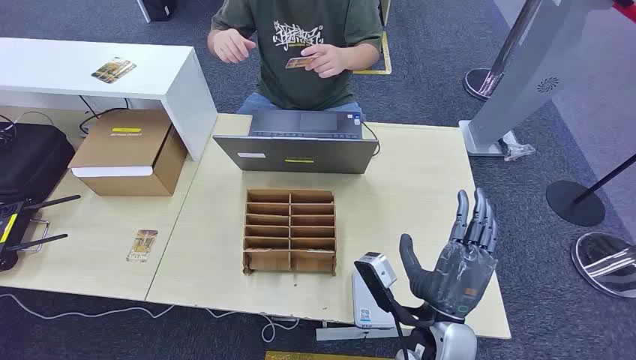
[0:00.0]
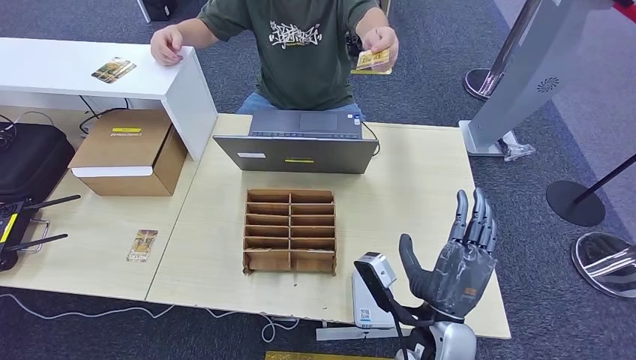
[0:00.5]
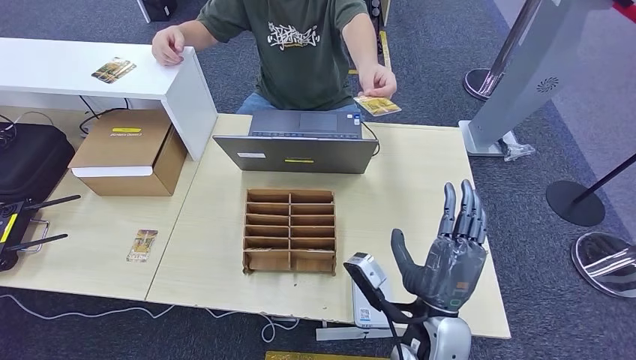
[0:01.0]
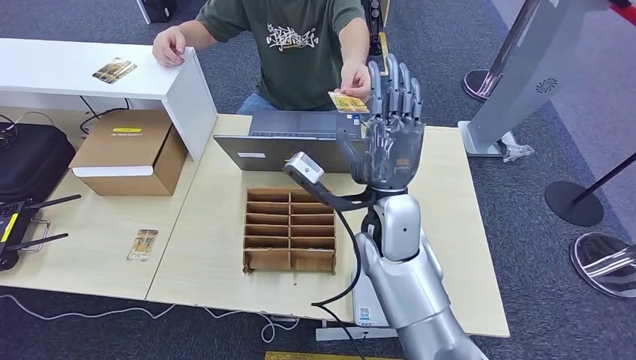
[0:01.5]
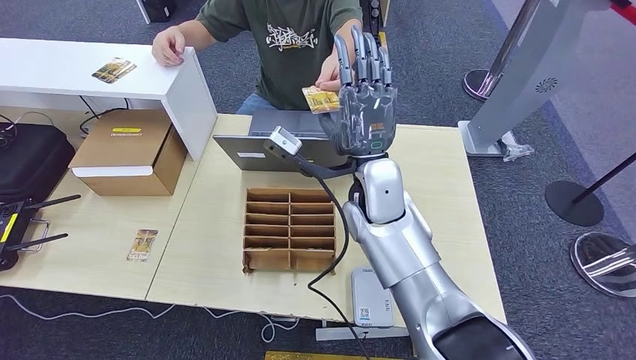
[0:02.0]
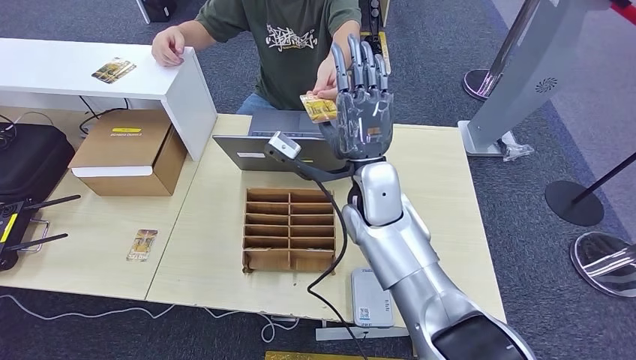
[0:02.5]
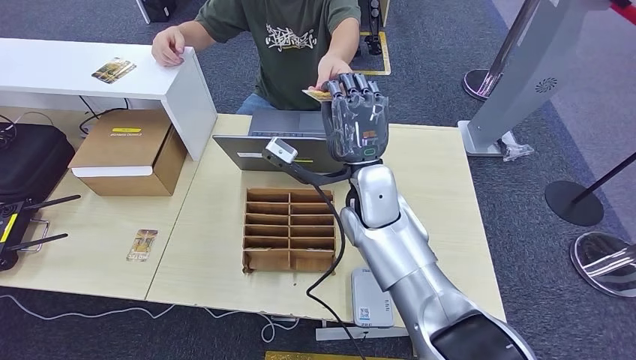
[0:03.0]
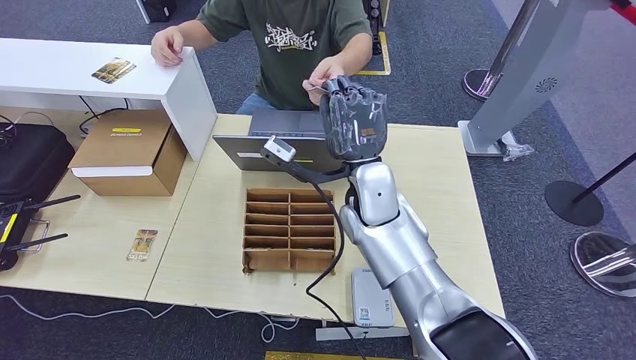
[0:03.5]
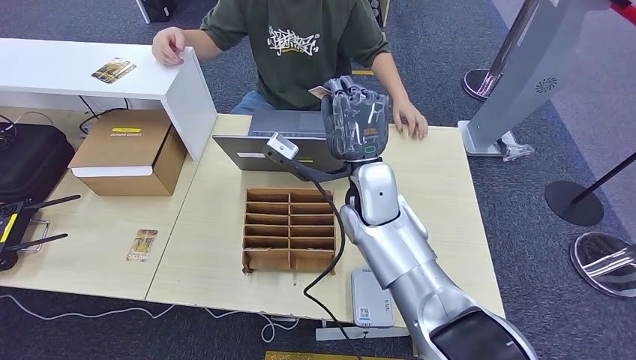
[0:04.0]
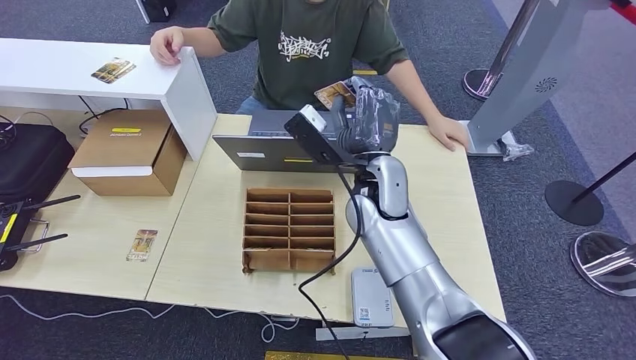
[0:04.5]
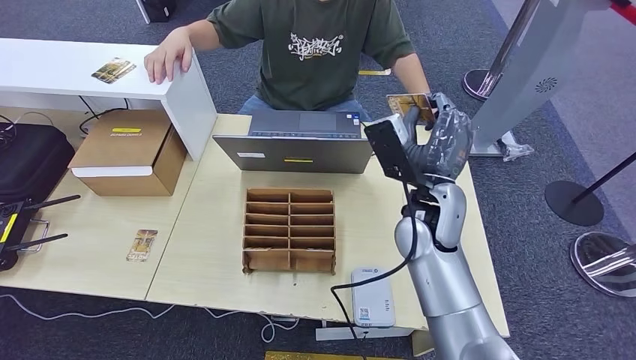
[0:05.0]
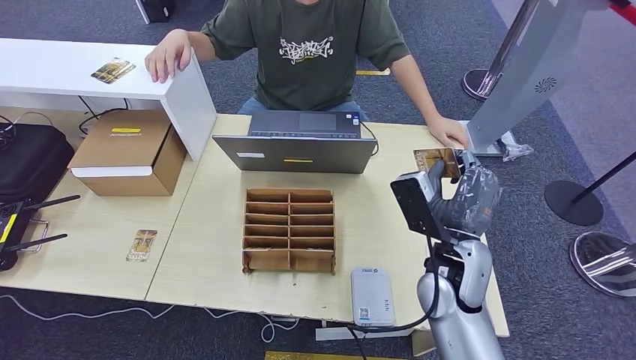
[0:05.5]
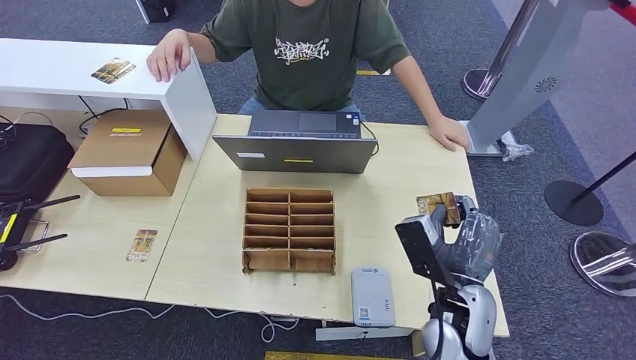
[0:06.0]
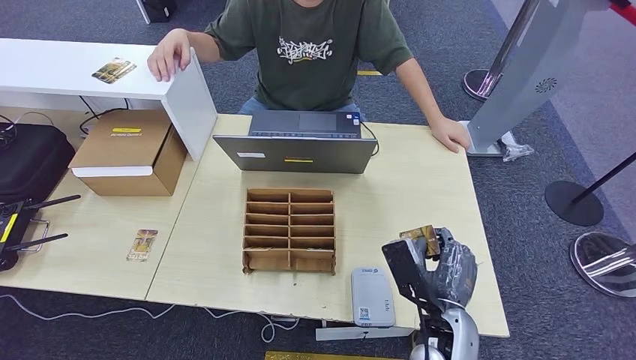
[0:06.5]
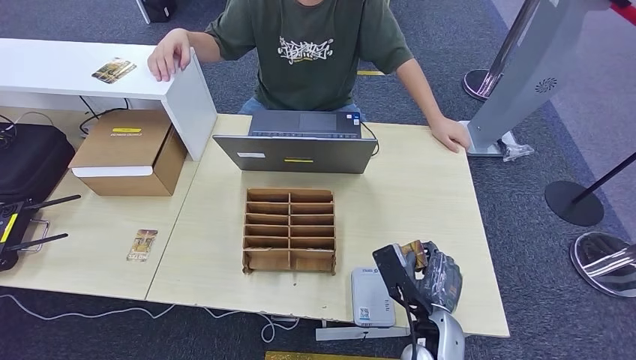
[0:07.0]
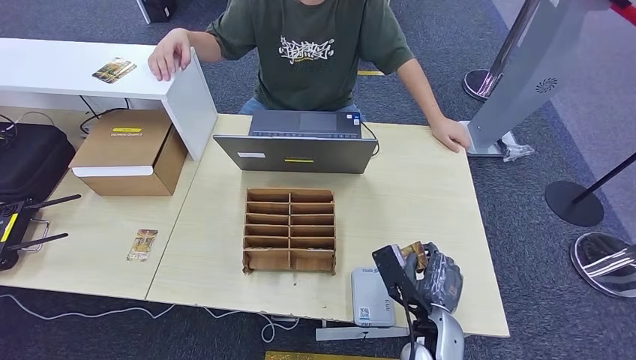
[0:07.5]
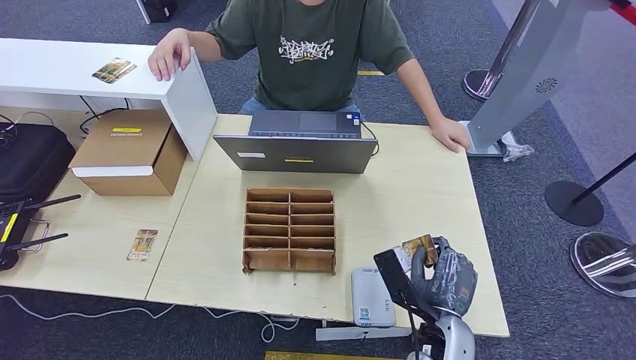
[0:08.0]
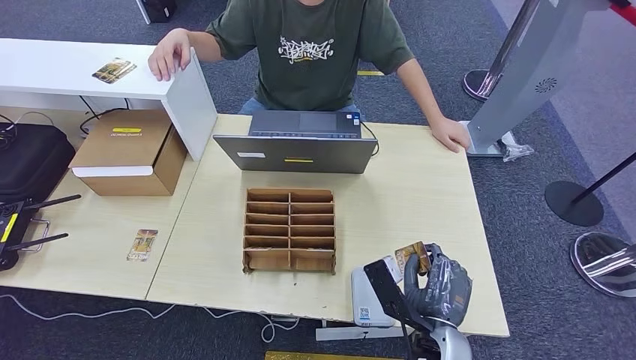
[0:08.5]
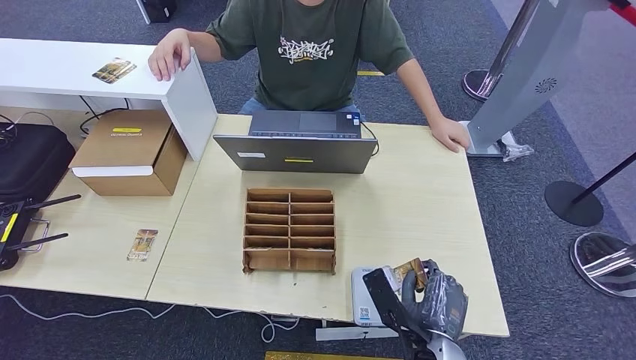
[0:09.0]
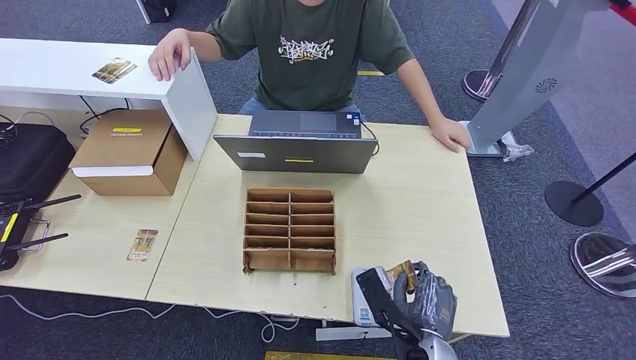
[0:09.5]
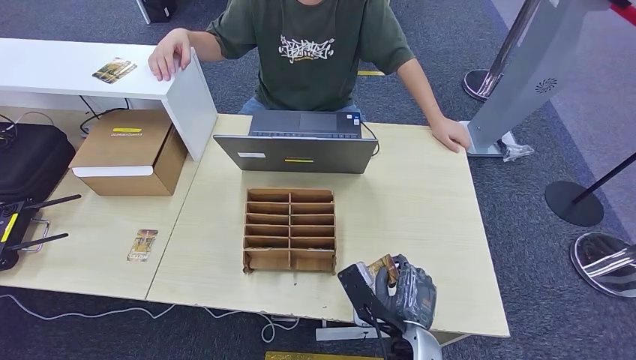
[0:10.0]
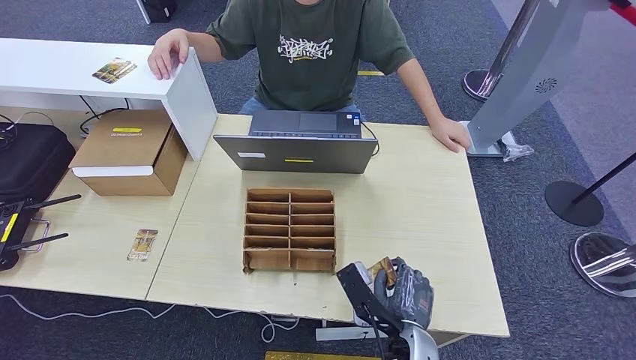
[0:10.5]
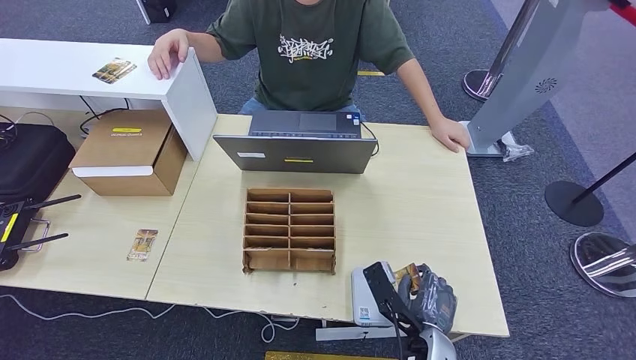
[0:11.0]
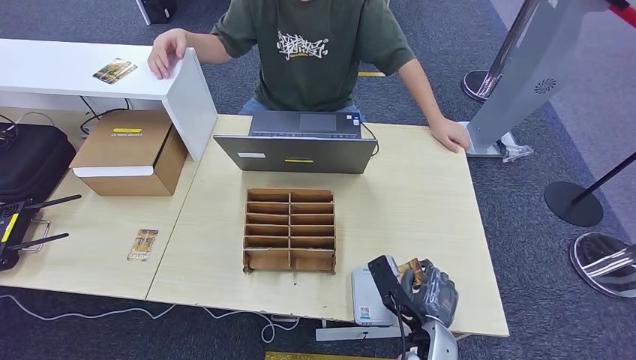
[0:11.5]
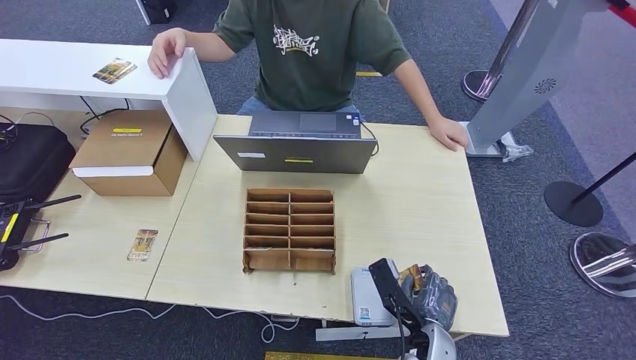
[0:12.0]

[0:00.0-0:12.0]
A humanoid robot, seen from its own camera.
Step, 0:00.0 to 0:04.0: Take the ID card from the person's hand.
Step, 0:04.5 to 0:11.0: Place the ID card on the card reader.
0:02.0 to 0:04.0: The hands stay close to where they were, moving slightly.
0:04.0 to 0:06.0: The right hand goes some 25 cm backward, to the right and downward.
0:06.0 to 0:08.0: The right hand goes approximately 5 cm downward.
0:08.0 to 0:10.0: The right hand ends up some 5 cm from where it was.
0:10.0 to 0:12.0: The right hand shifts by approximately 5 cm.

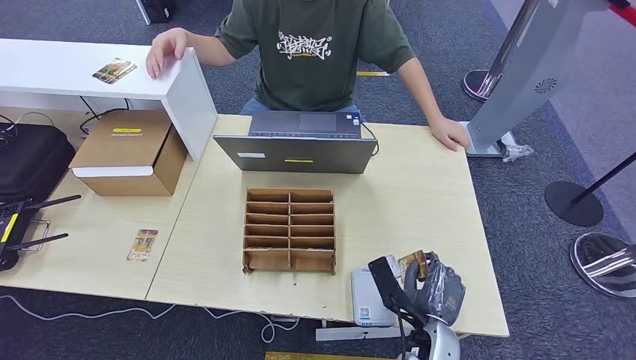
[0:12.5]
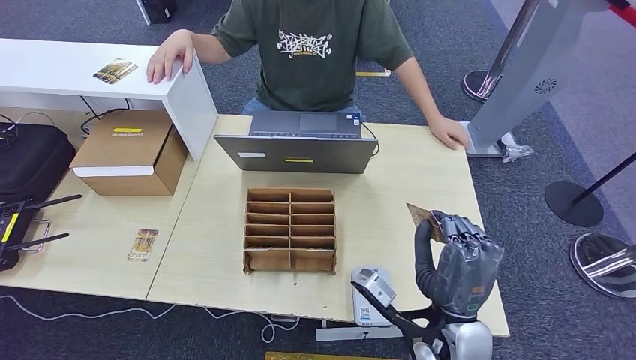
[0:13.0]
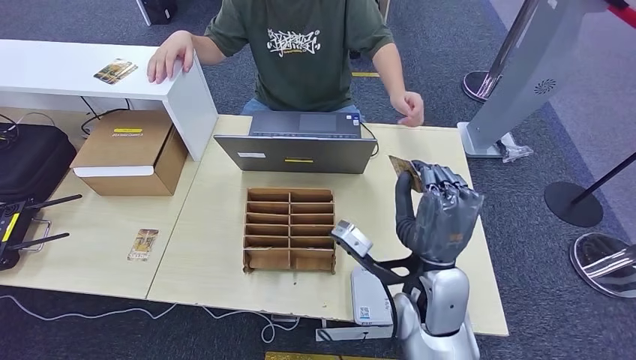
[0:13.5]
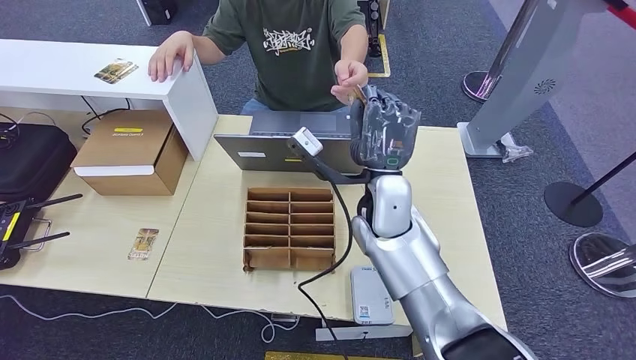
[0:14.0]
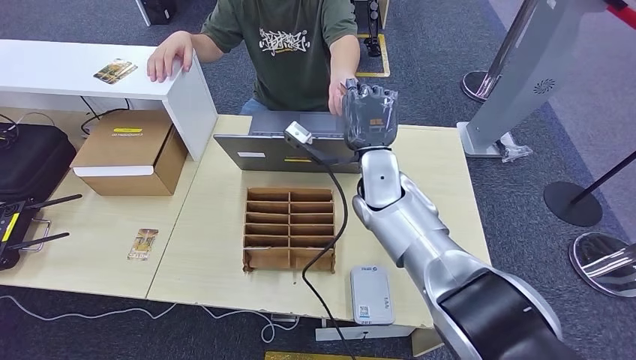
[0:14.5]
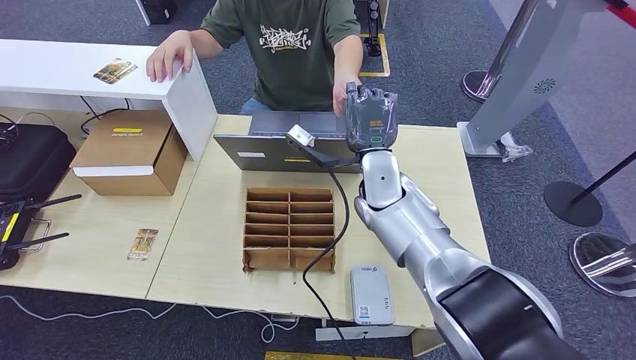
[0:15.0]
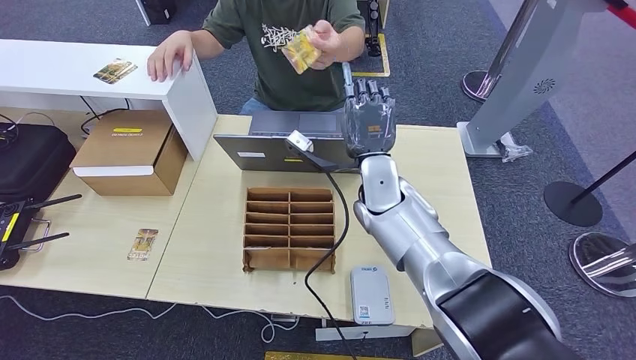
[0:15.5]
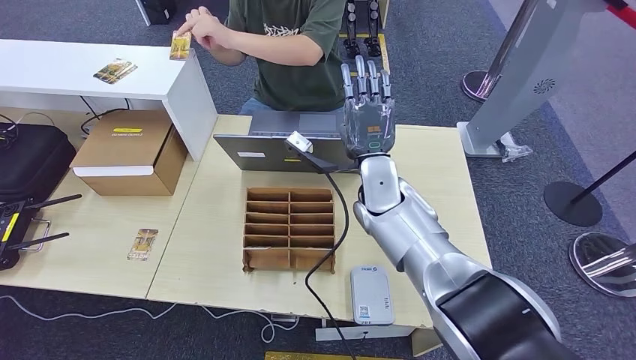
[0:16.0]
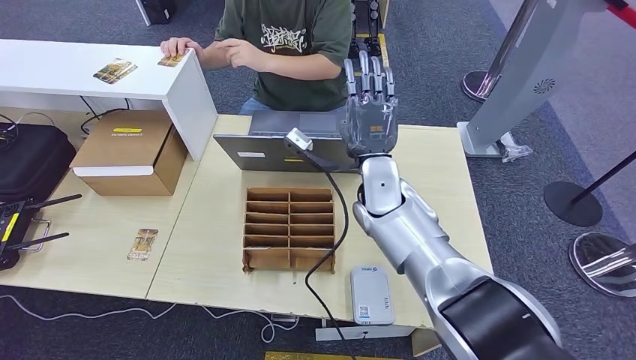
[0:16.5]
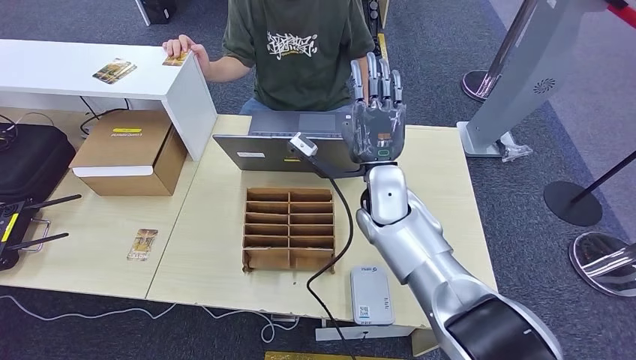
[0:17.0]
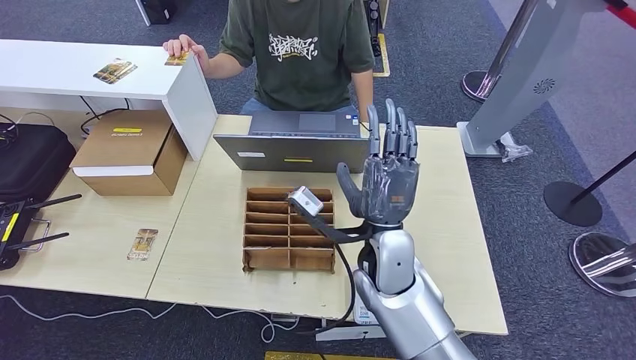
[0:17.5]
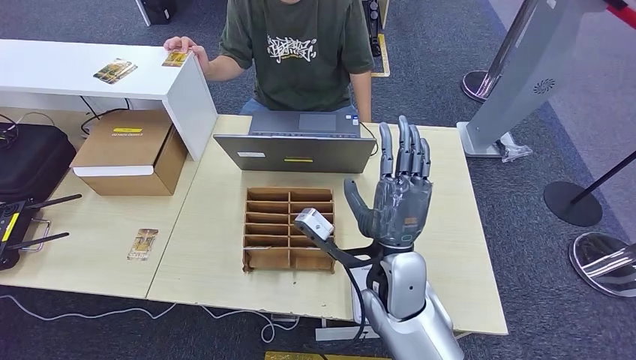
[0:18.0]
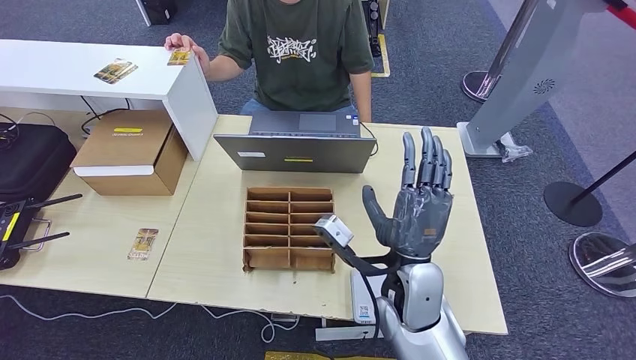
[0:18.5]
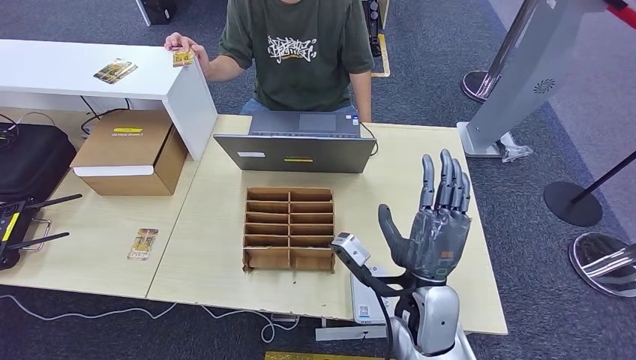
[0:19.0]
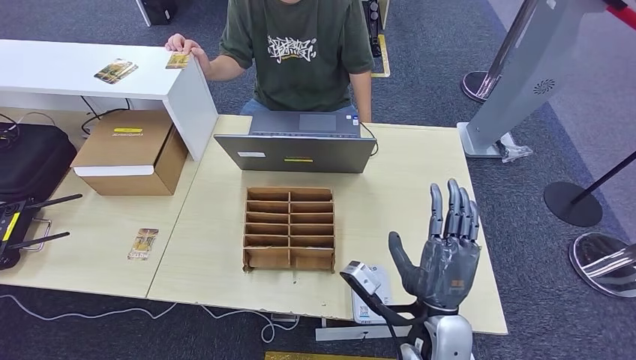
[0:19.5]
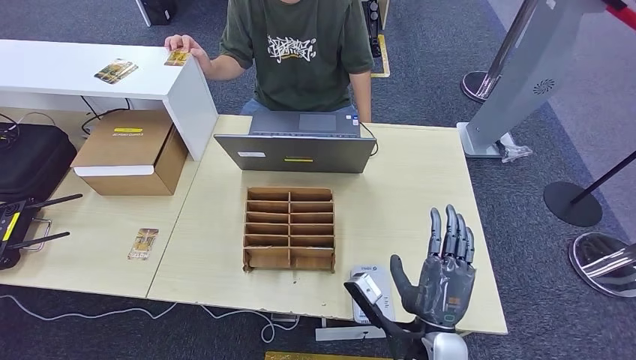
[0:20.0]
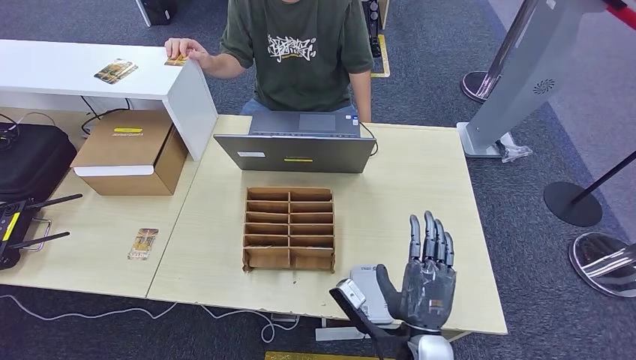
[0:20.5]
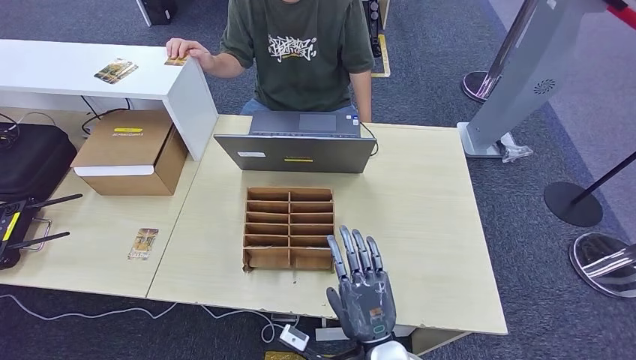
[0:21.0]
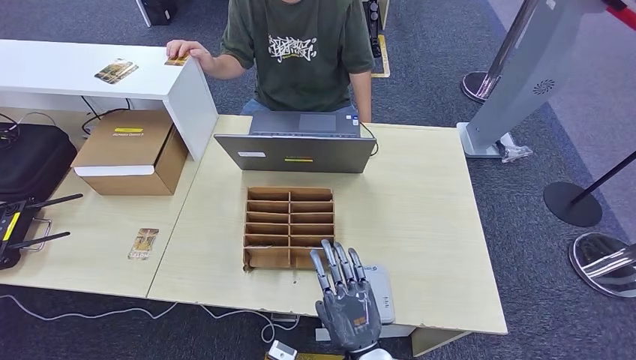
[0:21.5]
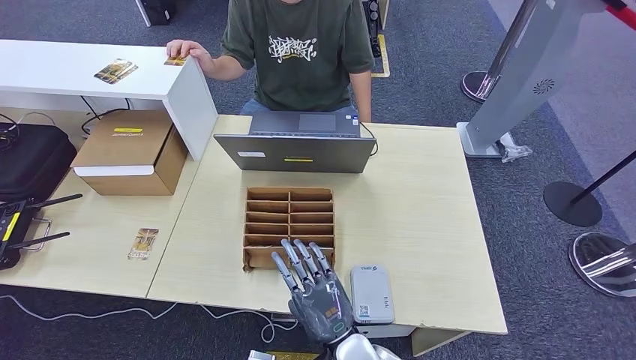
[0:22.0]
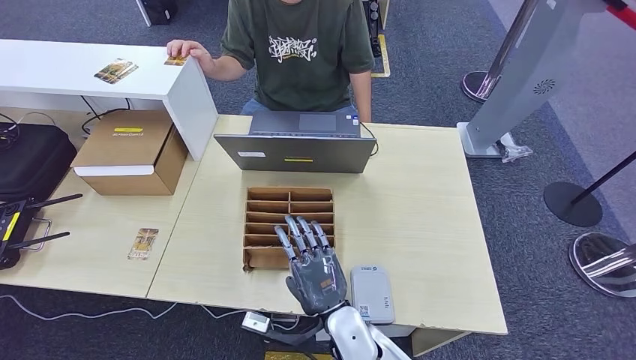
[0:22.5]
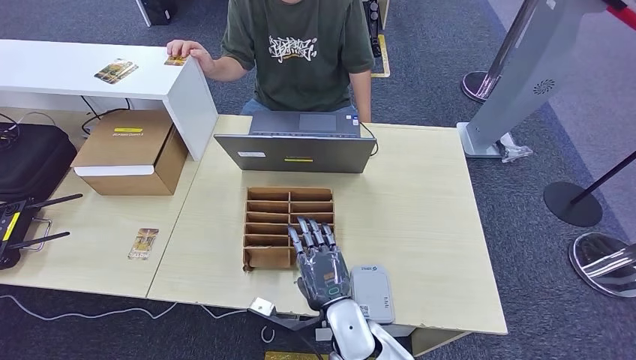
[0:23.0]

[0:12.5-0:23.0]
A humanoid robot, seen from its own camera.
Step, 0:12.5 to 0:15.0: Hand the ID card to the person.
0:12.5 to 0:14.5: The right hand goes roughly 30 cm forward and upward.
0:14.5 to 0:16.5: Both hands stay about where they are.
0:16.5 to 0:19.0: The right hand shifts roughly 20 cm backward.
0:19.0 to 0:21.0: The right hand shifts approximately 10 cm downward and backward.
0:21.0 to 0:23.0: The right hand heads forward and to the left, covering roughly 10 cm.
